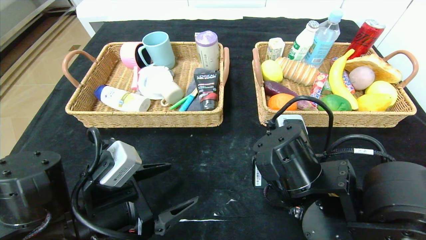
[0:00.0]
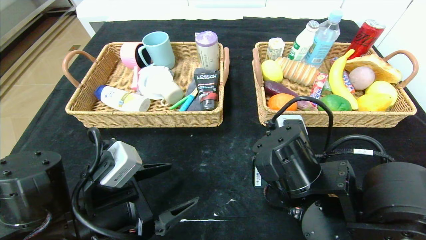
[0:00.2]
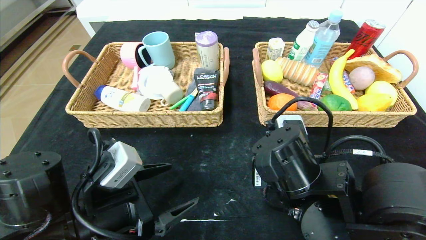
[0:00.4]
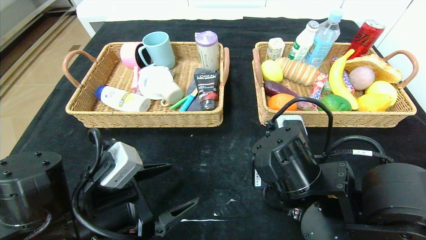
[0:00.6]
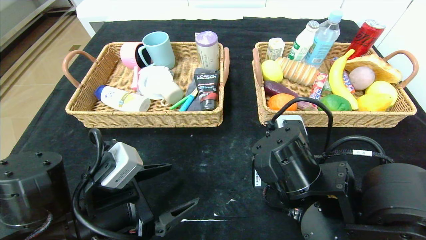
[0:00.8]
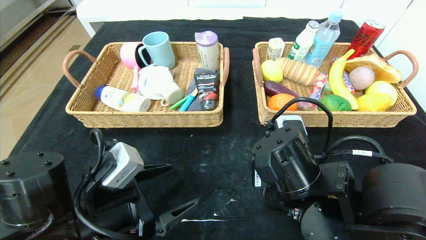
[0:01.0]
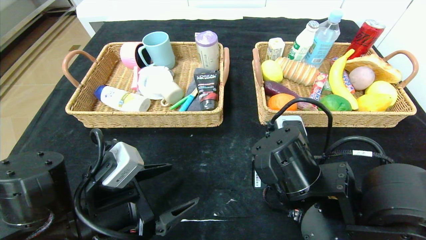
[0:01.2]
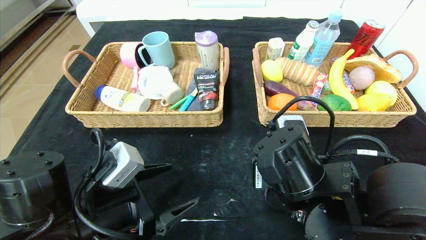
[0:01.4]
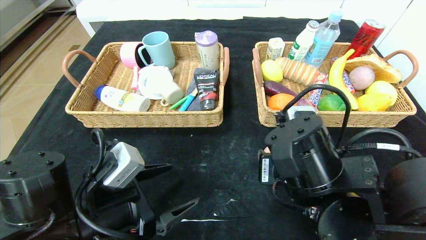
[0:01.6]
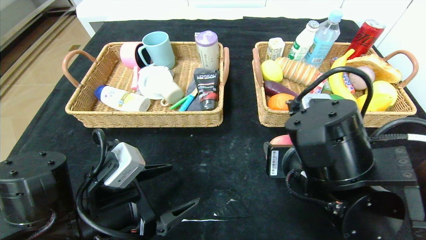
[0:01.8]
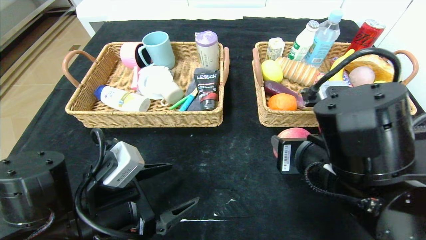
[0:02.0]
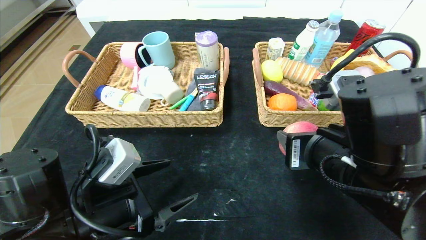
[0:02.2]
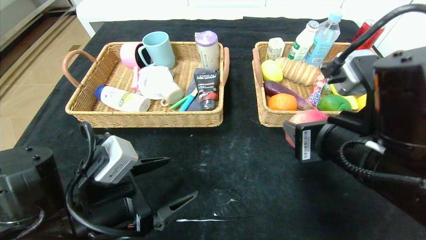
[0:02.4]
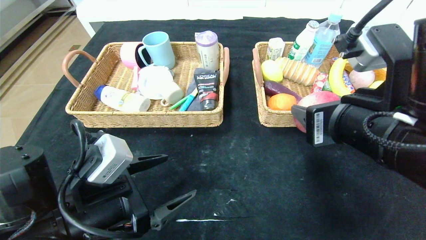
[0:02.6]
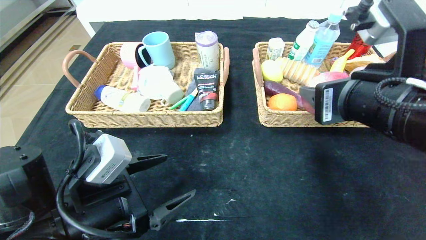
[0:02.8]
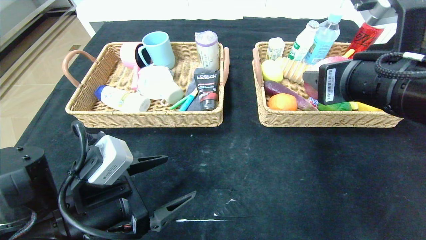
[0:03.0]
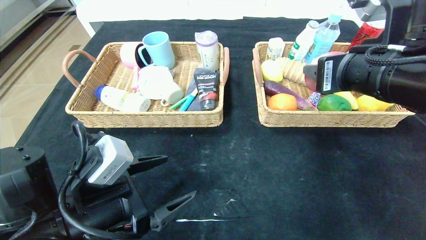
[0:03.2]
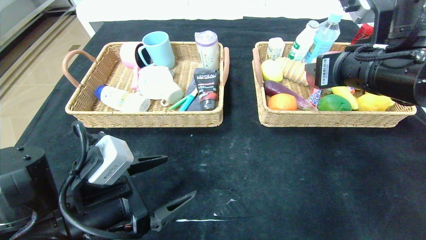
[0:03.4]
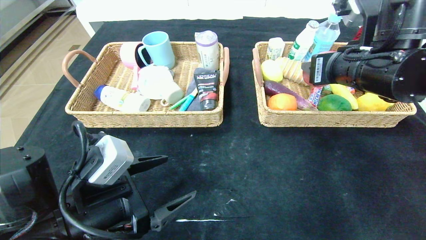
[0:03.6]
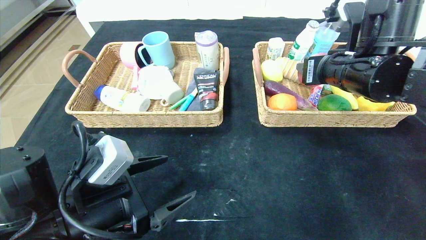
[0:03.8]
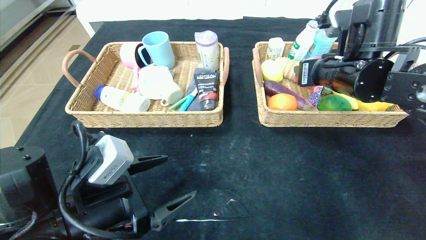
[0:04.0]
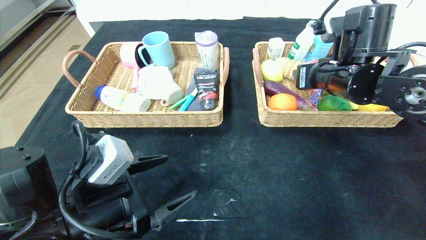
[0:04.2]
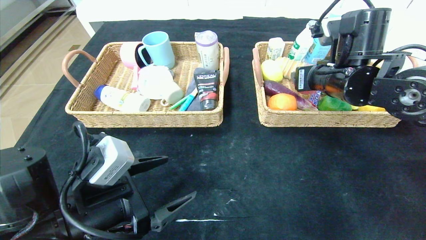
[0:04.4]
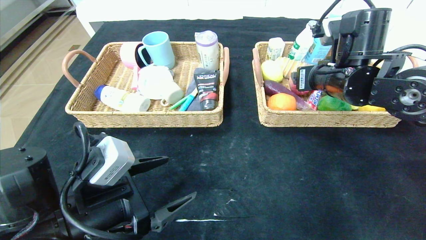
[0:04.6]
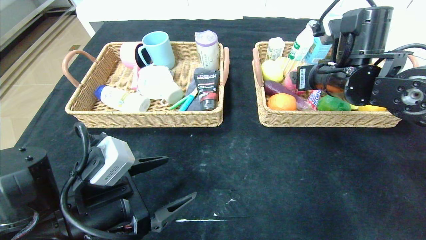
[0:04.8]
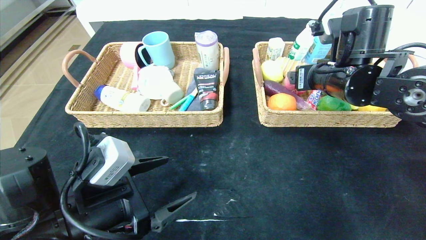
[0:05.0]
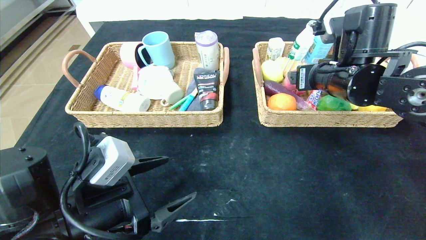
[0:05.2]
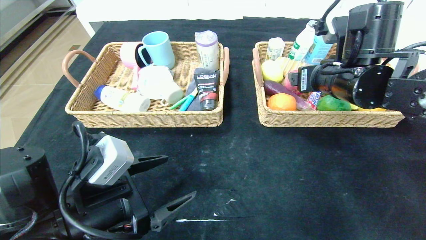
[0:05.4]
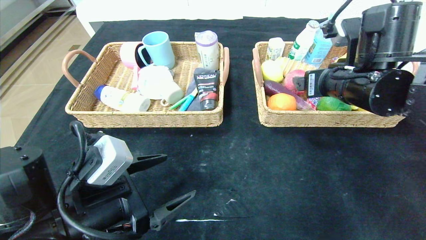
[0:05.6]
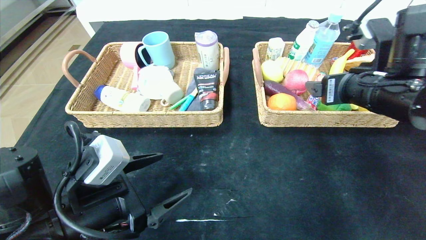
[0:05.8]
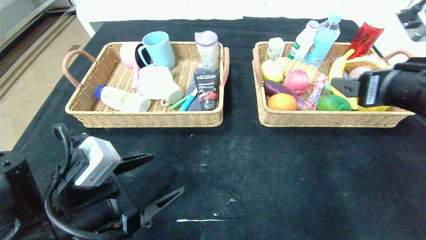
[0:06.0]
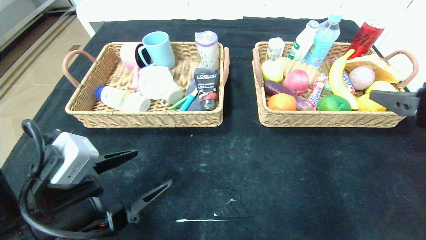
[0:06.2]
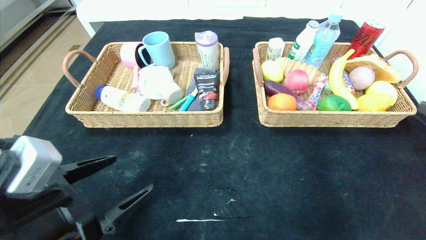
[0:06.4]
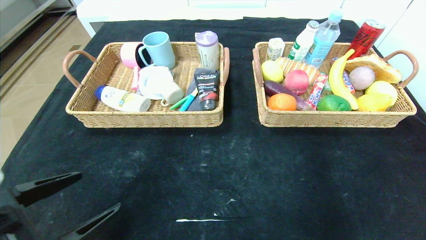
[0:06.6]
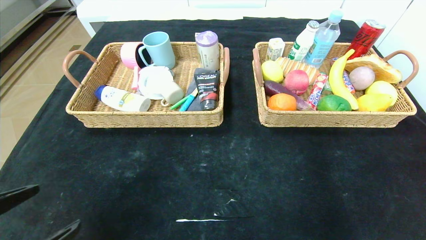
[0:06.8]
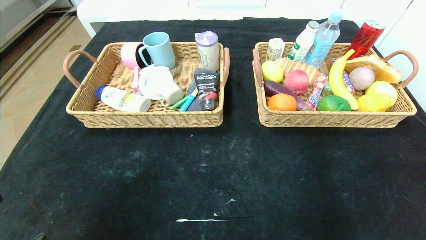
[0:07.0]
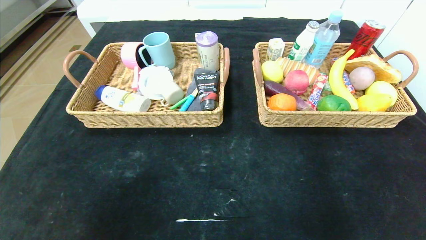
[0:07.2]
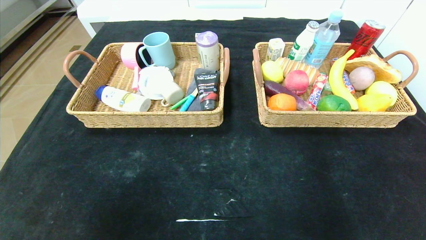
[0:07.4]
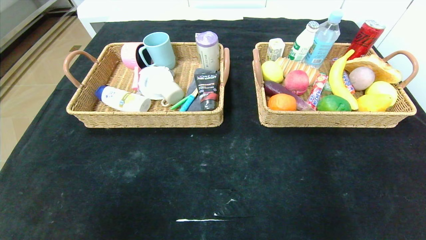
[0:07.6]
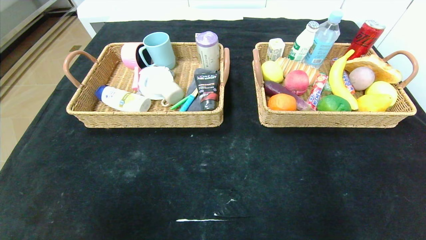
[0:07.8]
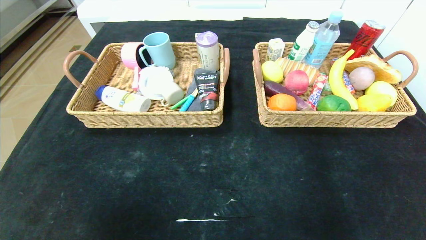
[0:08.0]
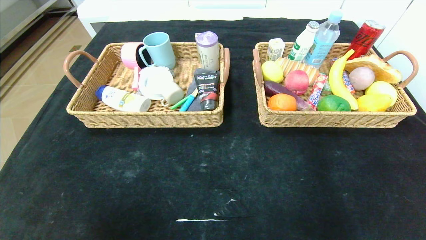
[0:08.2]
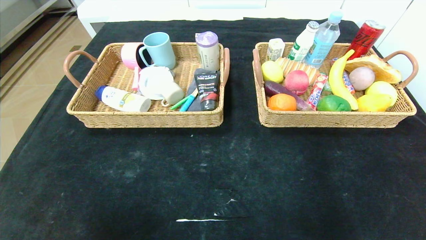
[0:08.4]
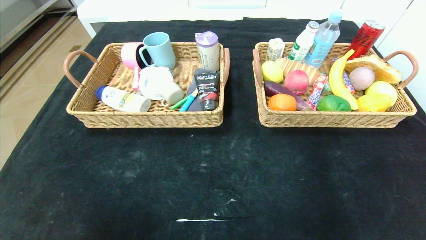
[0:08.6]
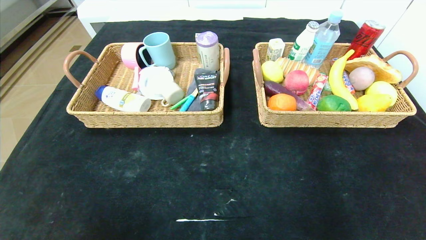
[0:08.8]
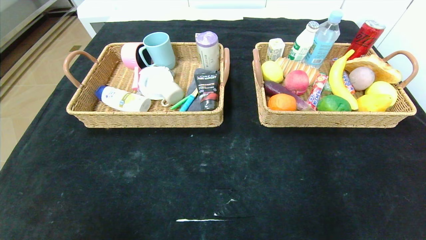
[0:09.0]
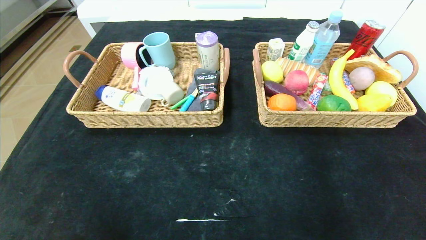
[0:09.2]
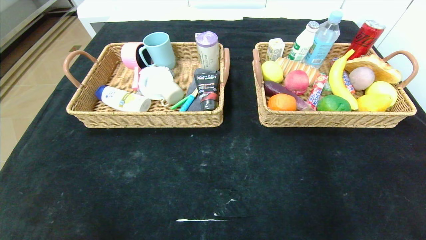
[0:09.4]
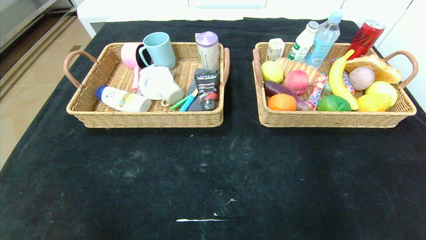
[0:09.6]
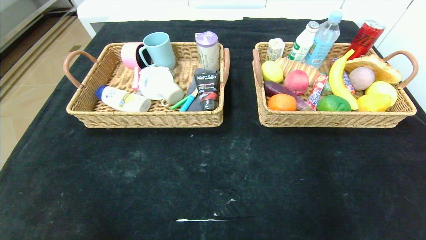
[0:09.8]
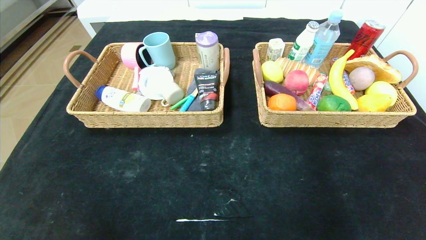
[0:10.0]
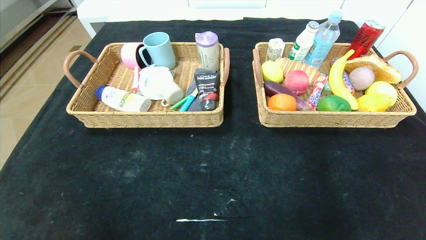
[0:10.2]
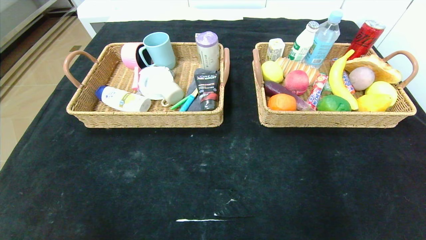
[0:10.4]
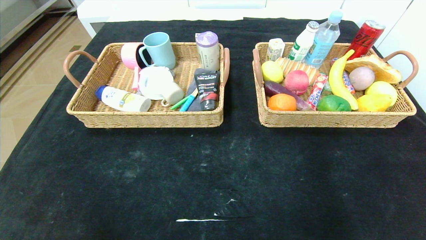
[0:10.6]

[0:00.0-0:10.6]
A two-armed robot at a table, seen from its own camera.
Step, 0:00.0 to 0:06.6: Pick up the peach and put it in the right basket.
0:00.0 to 0:01.6: There are only small adjustments of the grippers.
0:01.6 to 0:03.0: The right gripper travels upward and to the right by some 15 cm.
0:03.0 to 0:04.6: The right gripper travels forward by about 15 cm.
0:04.6 to 0:06.0: The right gripper heads backward and to the right, covering roughly 15 cm.
0:06.0 to 0:07.6: The two grippers go approximately 25 cm backward.

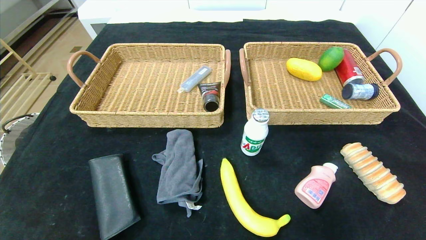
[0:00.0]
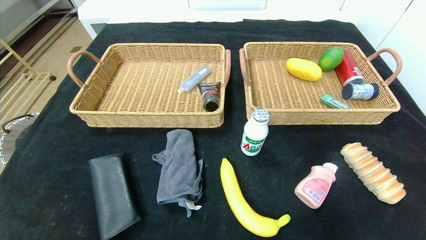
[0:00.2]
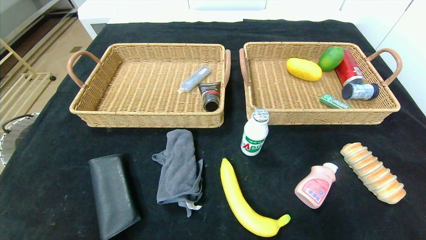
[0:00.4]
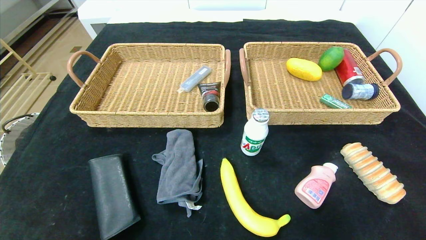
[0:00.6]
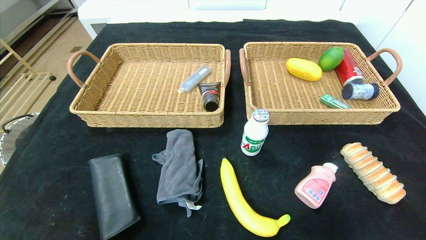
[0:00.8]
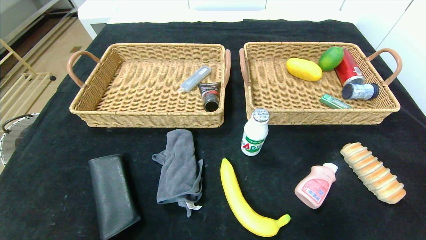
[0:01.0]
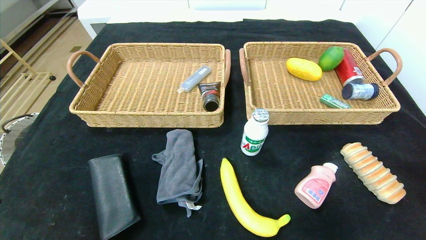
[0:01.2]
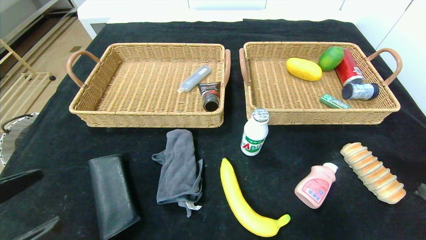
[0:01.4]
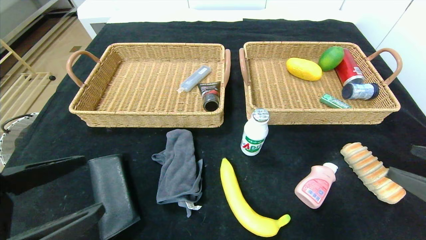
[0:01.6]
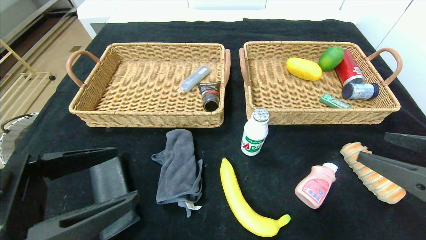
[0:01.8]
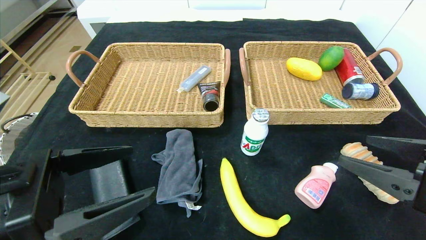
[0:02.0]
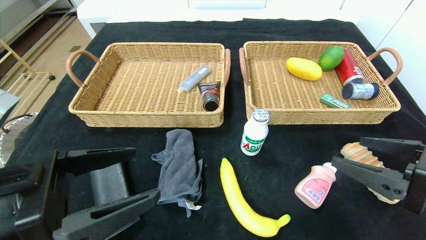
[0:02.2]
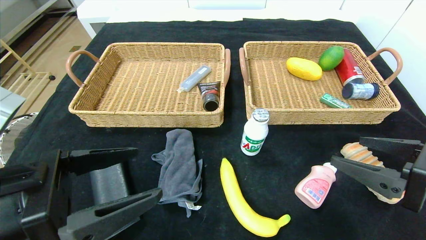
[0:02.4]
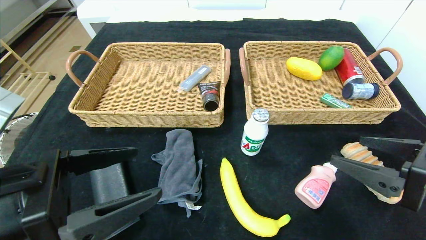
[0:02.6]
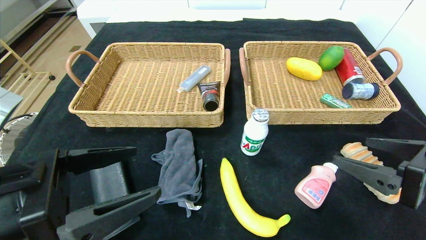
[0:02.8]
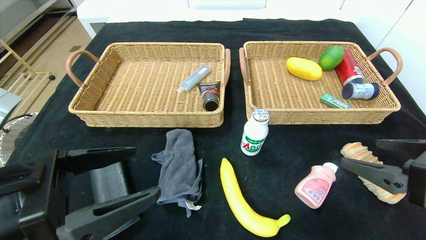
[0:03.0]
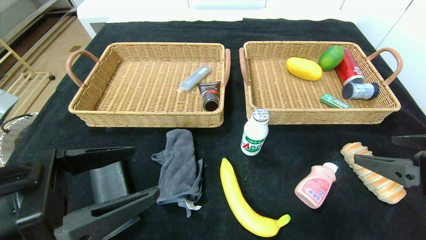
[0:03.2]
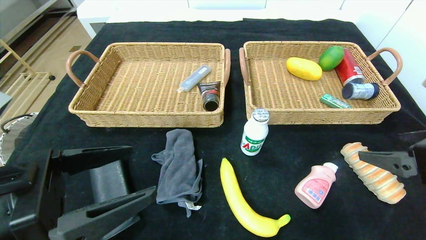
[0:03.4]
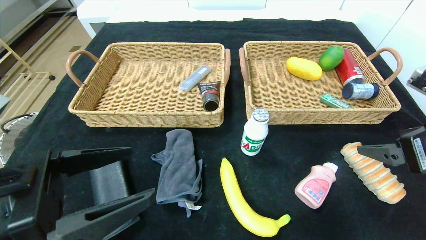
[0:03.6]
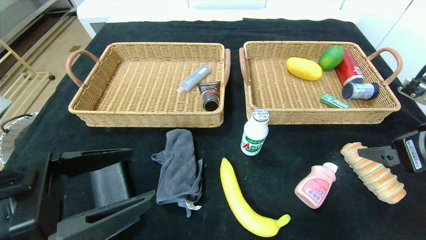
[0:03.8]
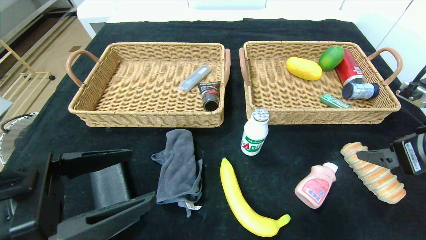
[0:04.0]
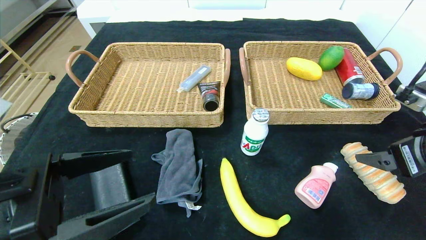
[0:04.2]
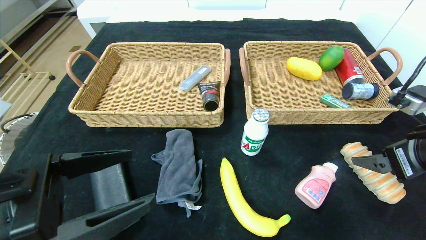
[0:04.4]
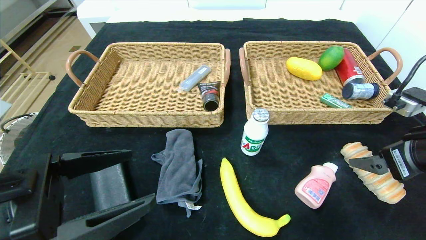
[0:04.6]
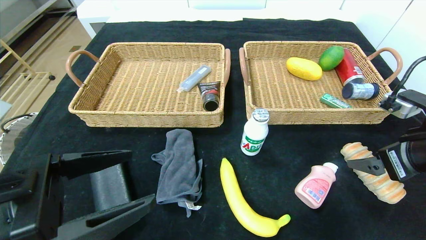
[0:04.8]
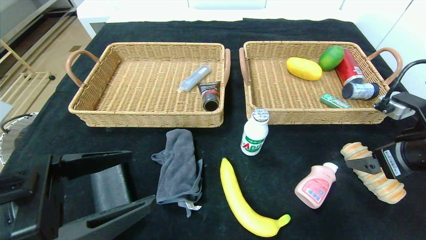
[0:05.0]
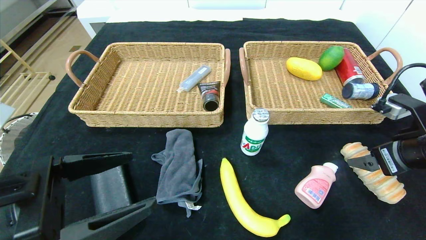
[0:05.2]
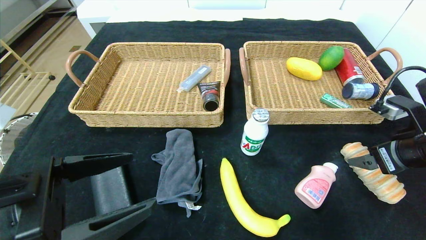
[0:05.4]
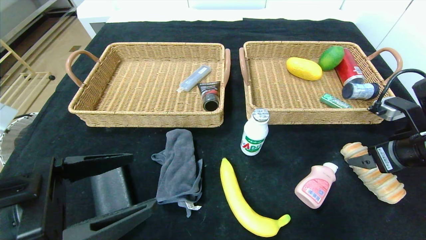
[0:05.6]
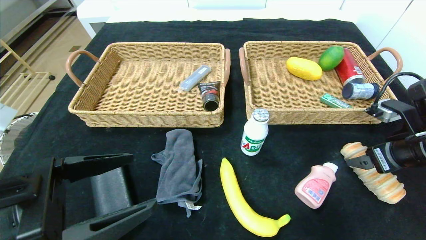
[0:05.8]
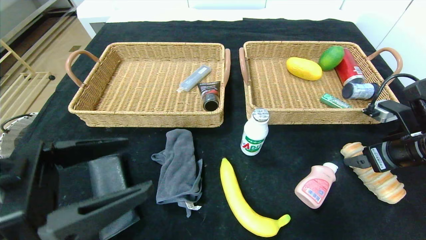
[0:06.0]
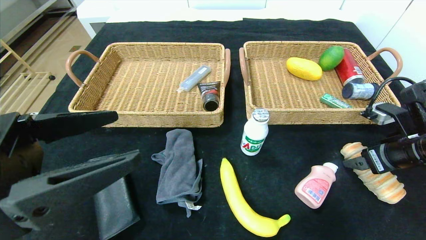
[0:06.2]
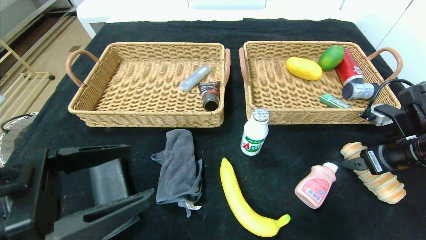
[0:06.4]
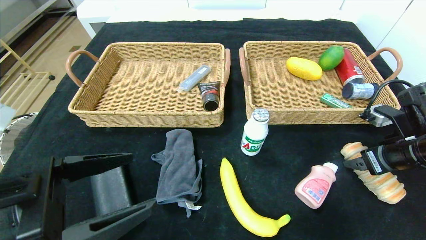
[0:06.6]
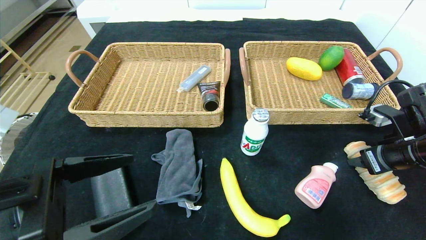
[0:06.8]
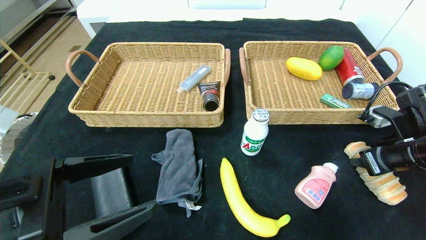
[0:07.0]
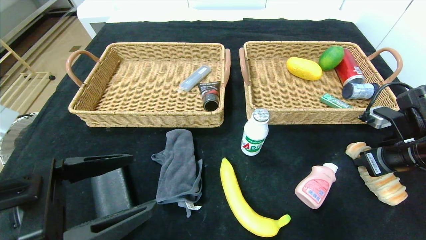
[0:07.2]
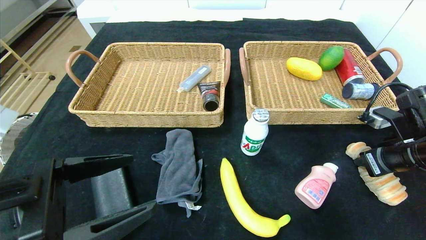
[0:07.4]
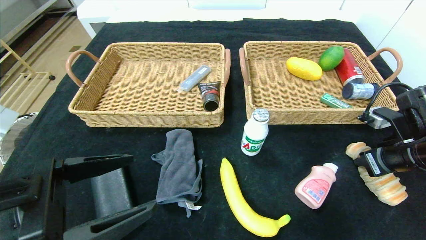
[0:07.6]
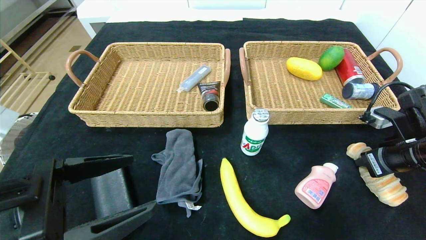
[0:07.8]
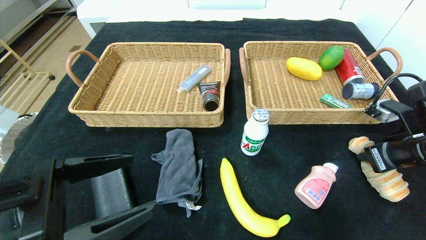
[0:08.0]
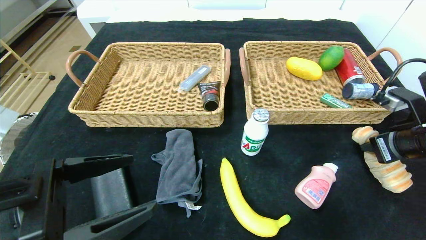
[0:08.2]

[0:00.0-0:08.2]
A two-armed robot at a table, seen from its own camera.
0:00.0 to 0:01.6: The grippers both shift upward and forward by some 20 cm.
0:01.6 to 0:03.2: The right gripper changes place by some 5 cm; the left gripper moves about 5 cm.
0:03.2 to 0:05.0: The right gripper is displaced forward by approximately 5 cm.
0:05.0 to 0:06.6: The right gripper changes place by some 5 cm.
0:06.6 to 0:08.2: The right gripper closes up.
